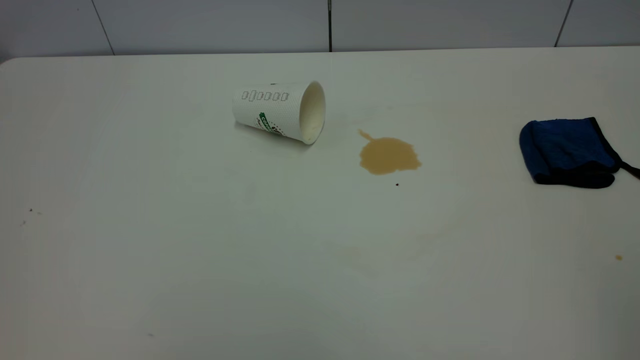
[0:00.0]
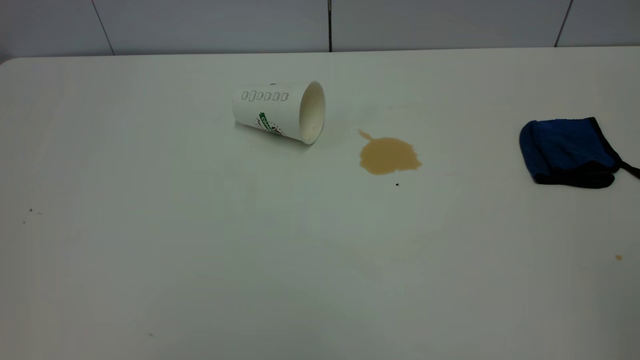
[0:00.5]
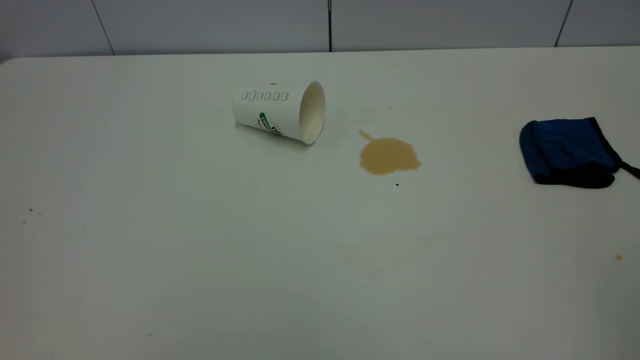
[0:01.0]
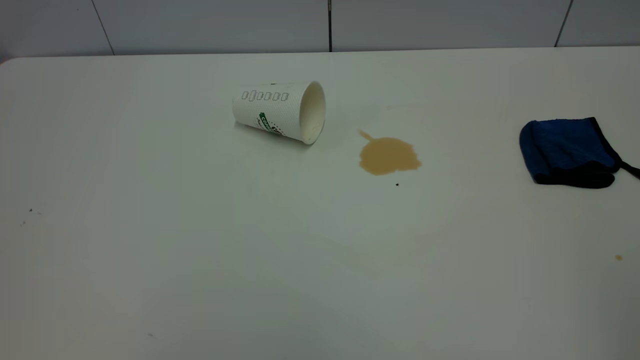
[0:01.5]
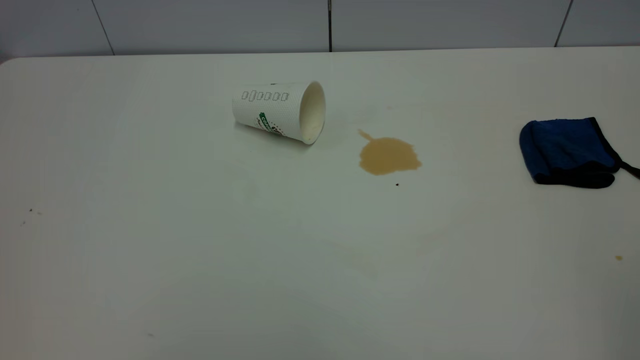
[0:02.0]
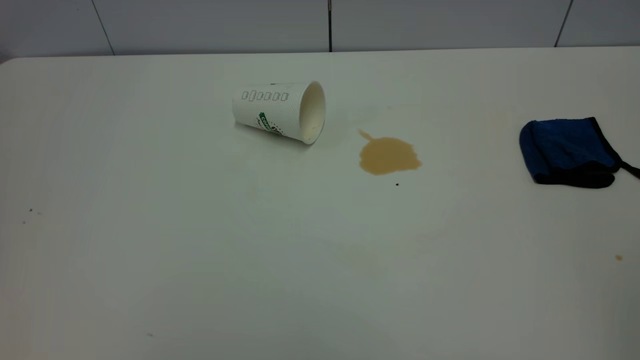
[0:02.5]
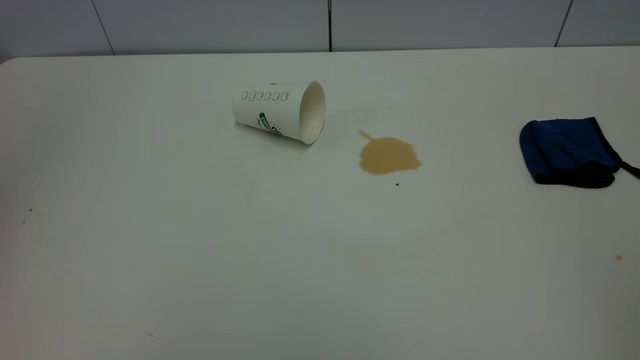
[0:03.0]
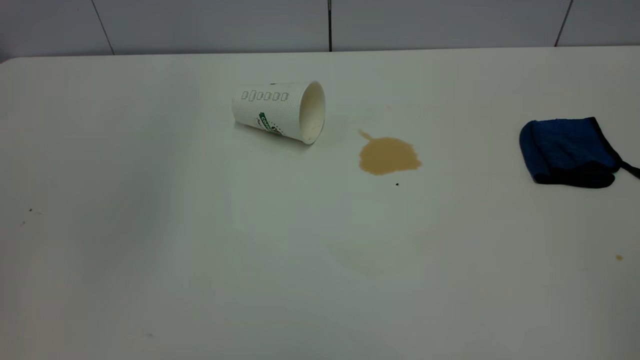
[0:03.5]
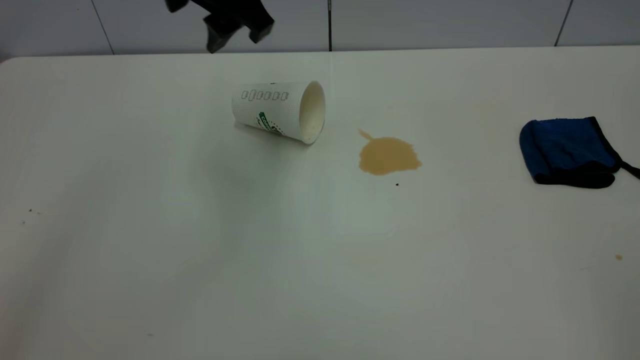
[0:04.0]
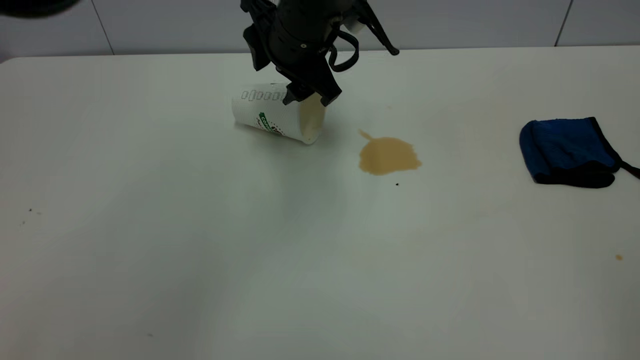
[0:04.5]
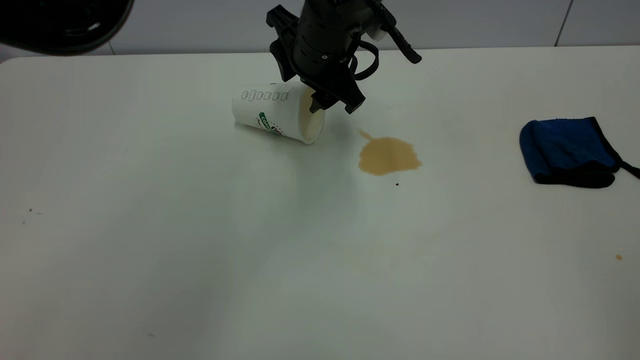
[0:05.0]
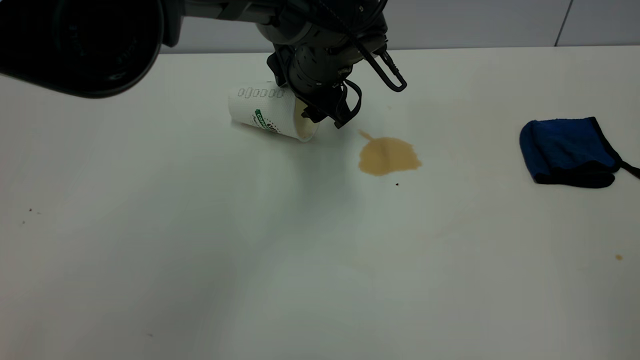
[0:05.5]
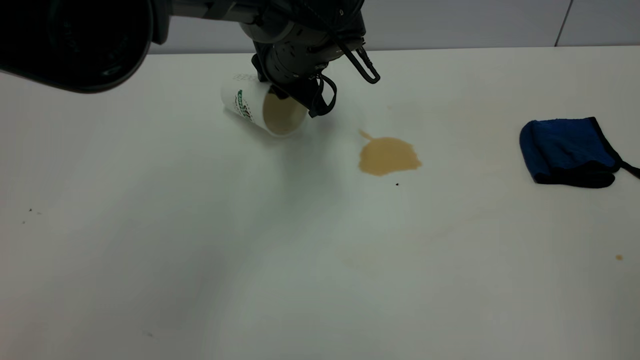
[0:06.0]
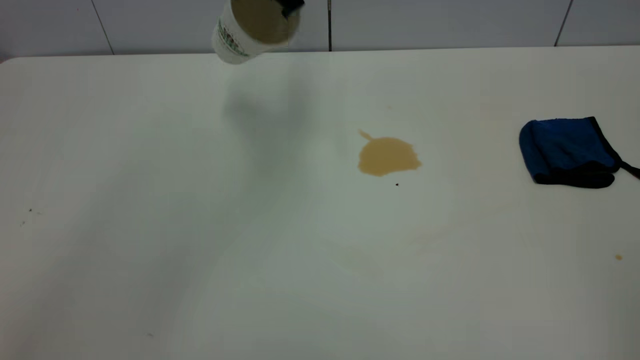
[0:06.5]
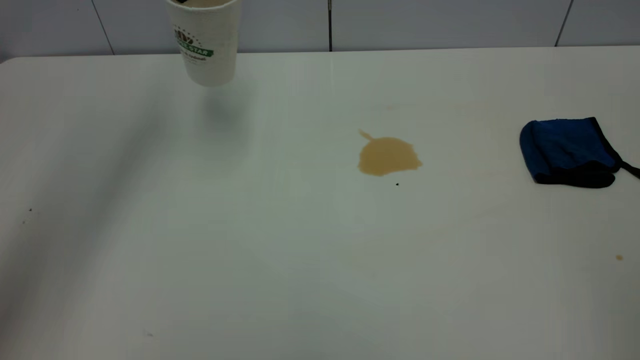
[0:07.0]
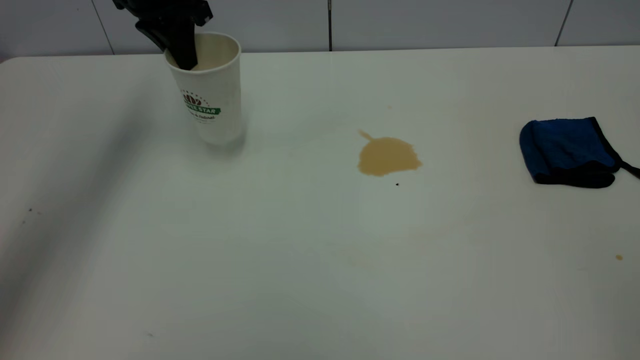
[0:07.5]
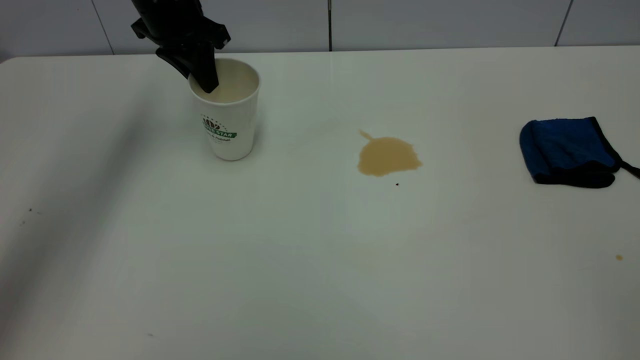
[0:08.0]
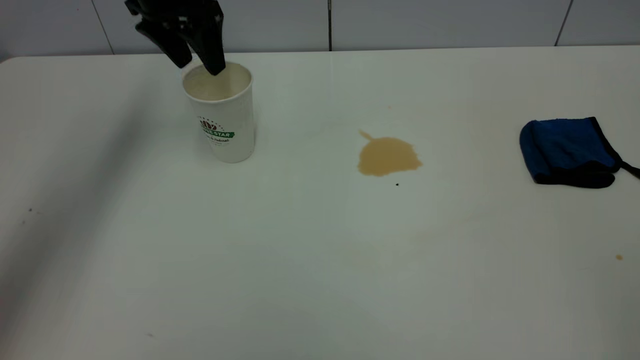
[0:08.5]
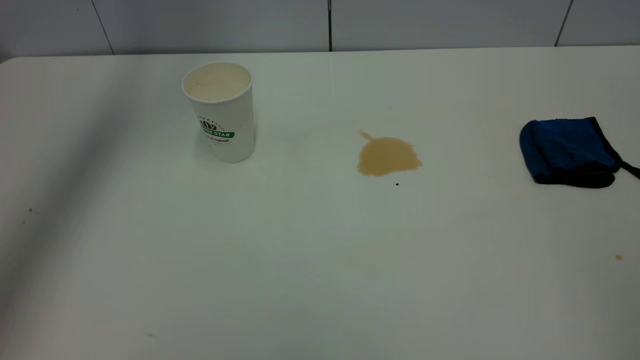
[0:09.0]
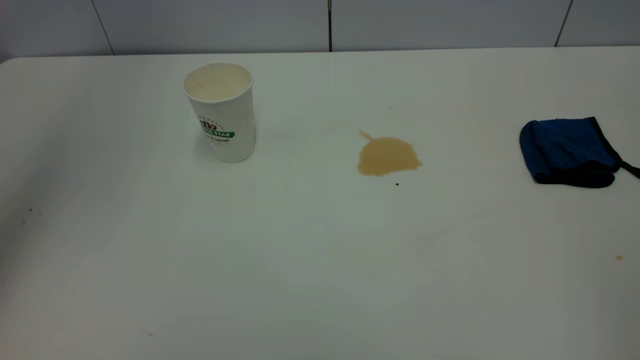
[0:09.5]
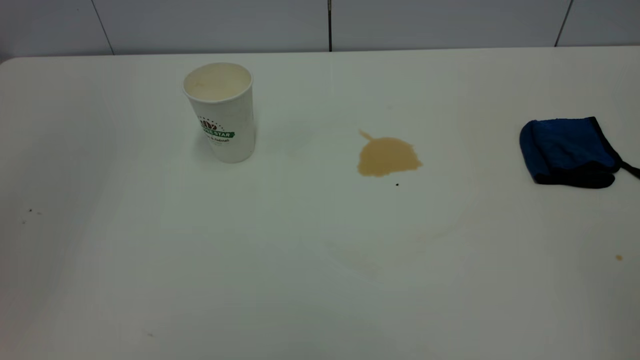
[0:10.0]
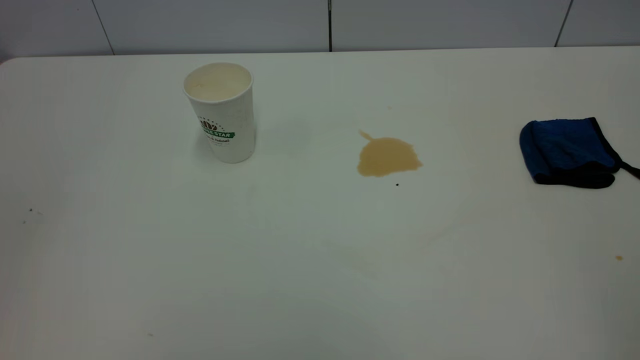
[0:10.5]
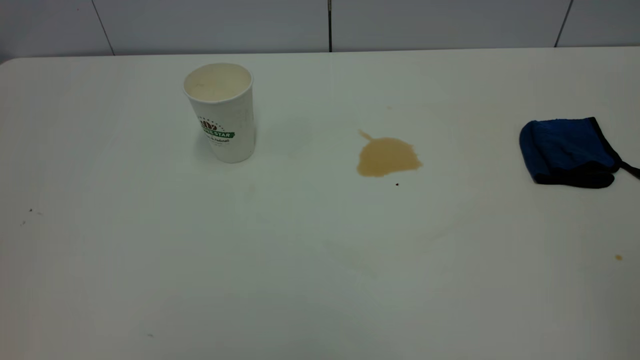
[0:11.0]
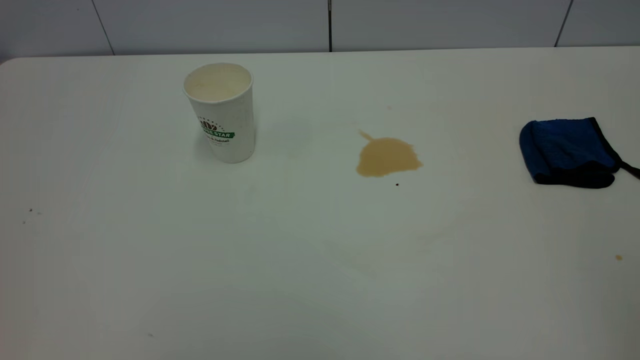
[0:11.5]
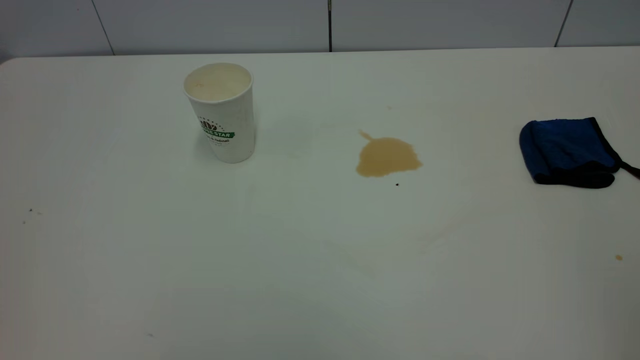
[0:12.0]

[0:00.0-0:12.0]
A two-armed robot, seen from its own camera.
Task of the whole recording: the left gripper pick up the fallen cup and place it upright, the right gripper grasp the blue rag and wipe the tea stain on the table, the right gripper put the blue rag back in its original position.
Step, 0:00.0 to 0:08.5: Stand the paper cup upright.
0:00.0 to 0:02.0: Neither gripper changes place.
0:02.0 to 0:04.0: The left gripper travels forward and to the right by some 50 cm, and opens.
0:04.0 to 0:06.0: The left gripper travels downward and forward by some 15 cm, and closes its fingers.
0:06.0 to 0:08.0: The left gripper moves to the left, about 15 cm, and travels upward and back again, about 20 cm each way.
0:08.0 to 0:10.0: The left gripper heads backward and upward, covering about 35 cm, and opens, then closes again.

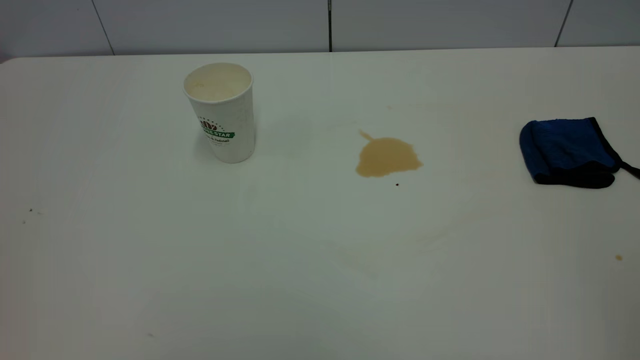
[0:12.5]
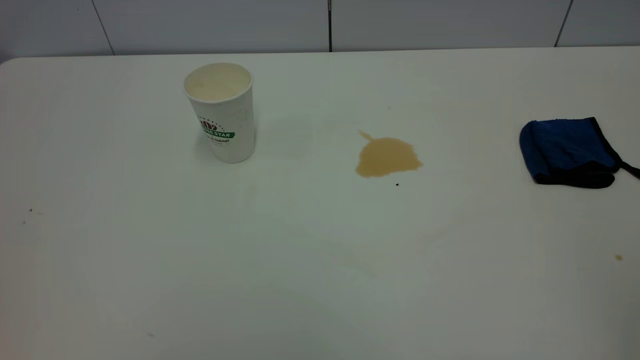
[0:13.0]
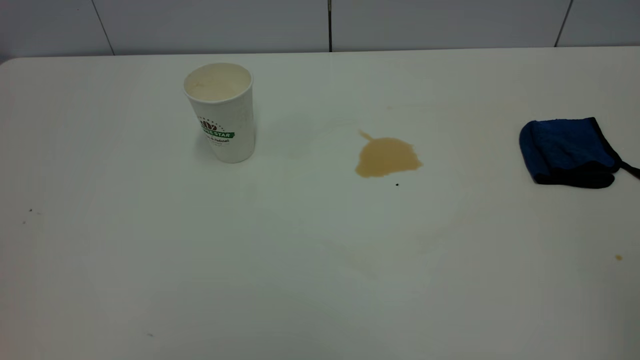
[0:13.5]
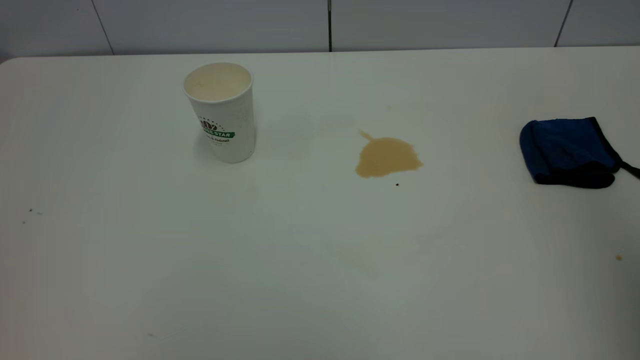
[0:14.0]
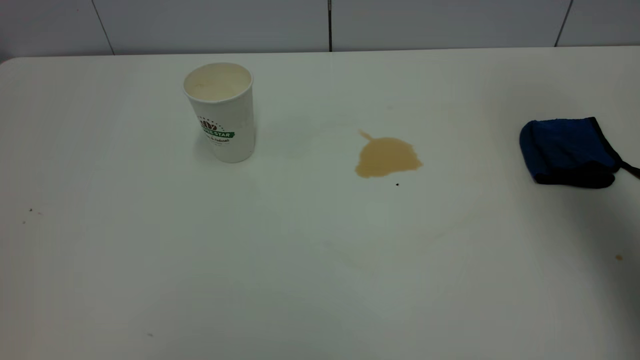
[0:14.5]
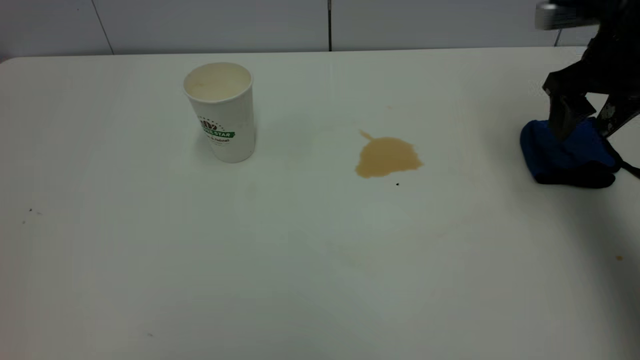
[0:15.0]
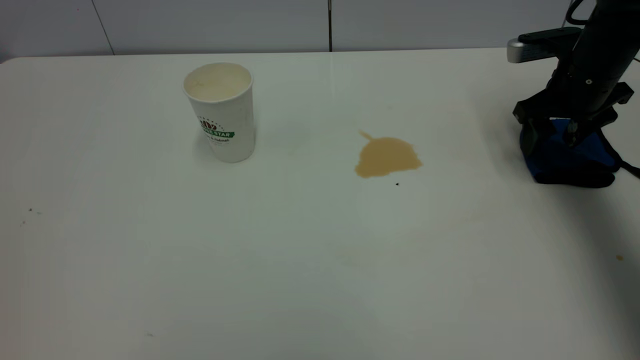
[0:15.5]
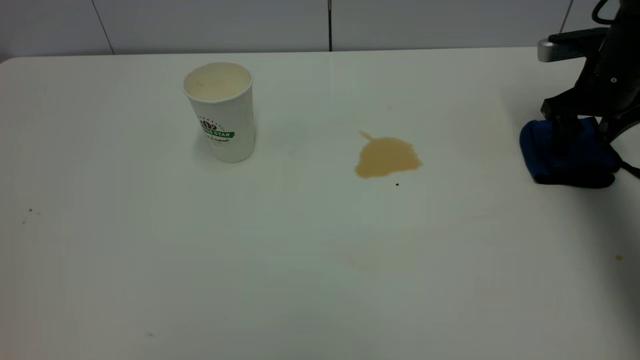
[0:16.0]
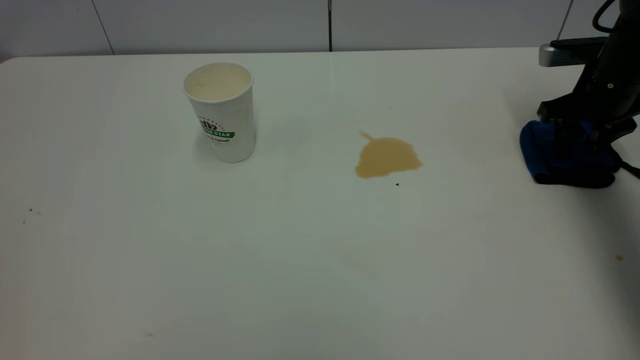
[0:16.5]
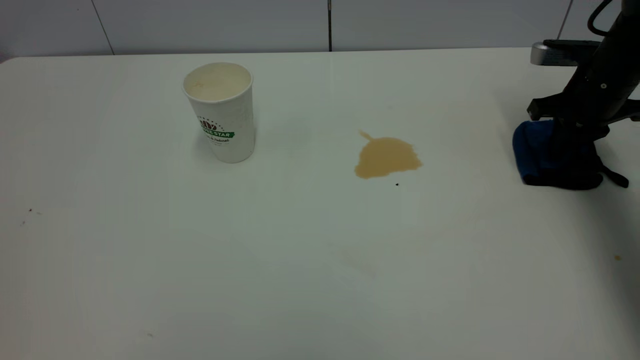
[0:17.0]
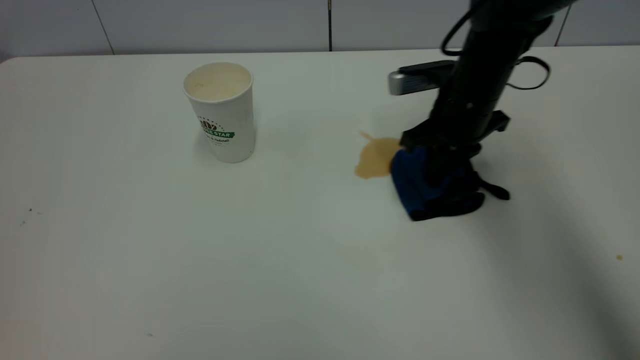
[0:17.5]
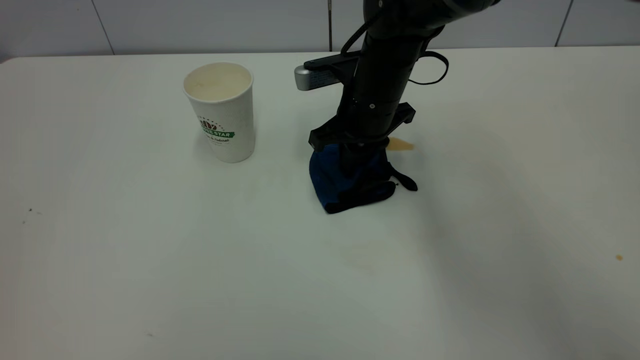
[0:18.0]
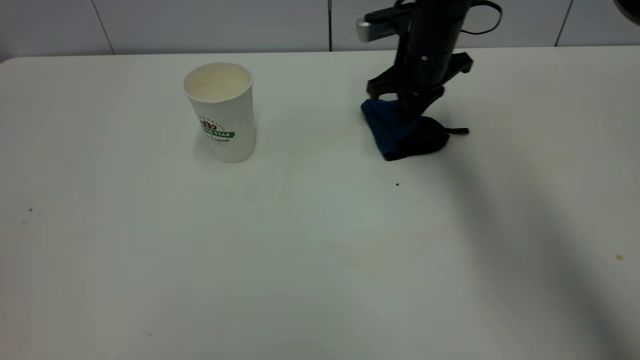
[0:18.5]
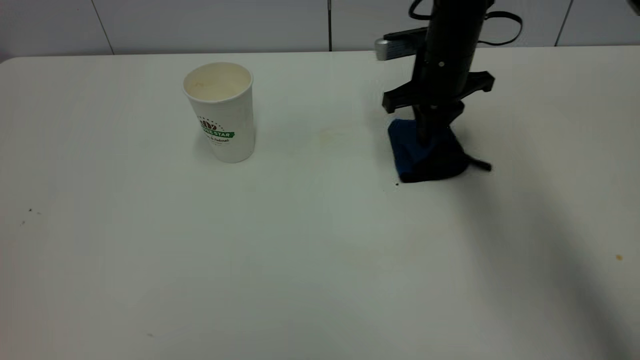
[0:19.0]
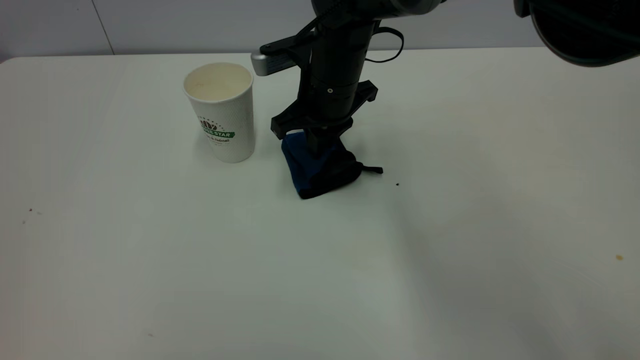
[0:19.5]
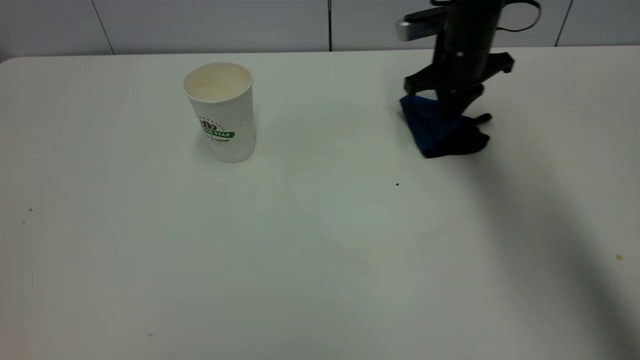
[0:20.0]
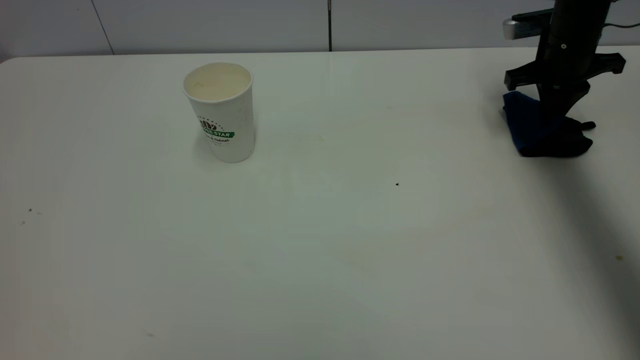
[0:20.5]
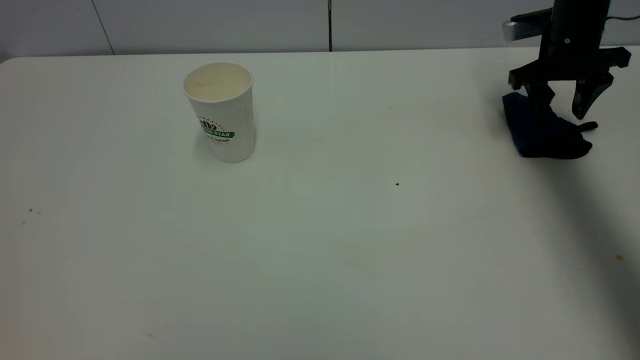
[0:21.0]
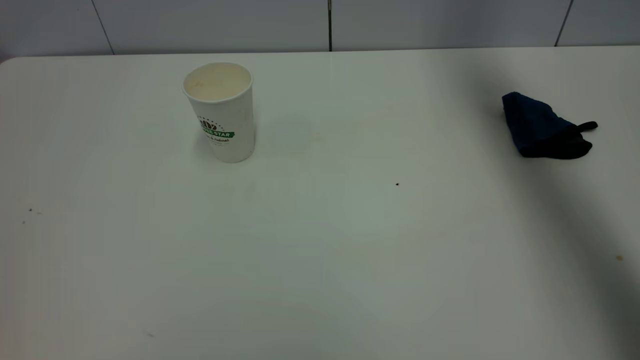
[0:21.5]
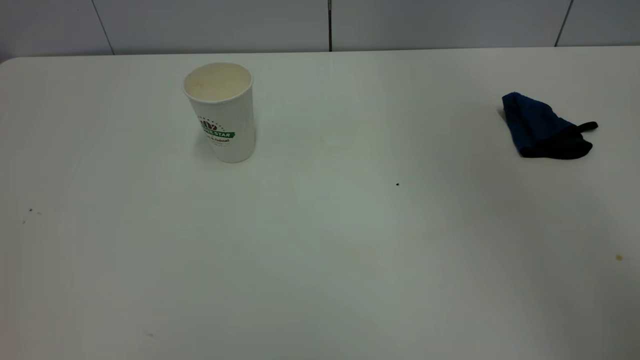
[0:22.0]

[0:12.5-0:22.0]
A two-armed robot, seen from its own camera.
Task of the whole recording: the left gripper pick up the fallen cup and place it upright, the right gripper grasp the blue rag and wipe the tea stain on the table, the right gripper put the blue rag back in its original position.
Step, 0:12.5 to 0:21.0: Wipe the stains off the table with a rag.
0:12.5 to 0:14.5: The right gripper travels forward by roughly 35 cm, and opens.
0:14.5 to 0:16.5: The right gripper heads downward and forward, covering approximately 25 cm, and closes.
0:16.5 to 0:18.0: The right gripper travels to the left by approximately 30 cm, and closes.
0:18.0 to 0:20.0: The right gripper goes left and right, approximately 15 cm each way, reversing 2 times.
0:20.0 to 0:22.0: The right gripper moves upward and backward, about 40 cm, and opens its fingers.
